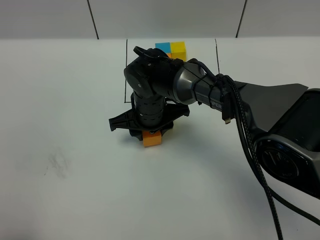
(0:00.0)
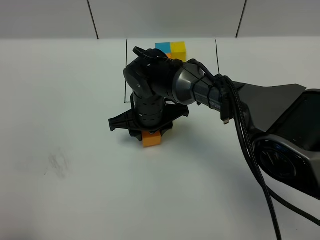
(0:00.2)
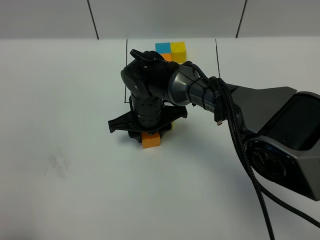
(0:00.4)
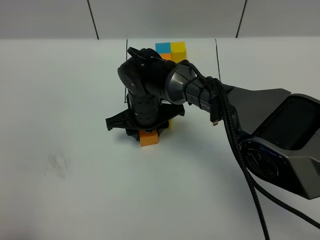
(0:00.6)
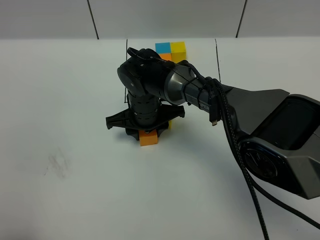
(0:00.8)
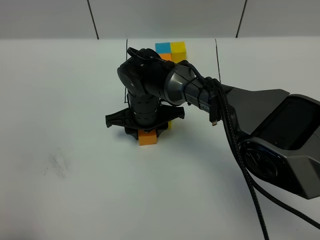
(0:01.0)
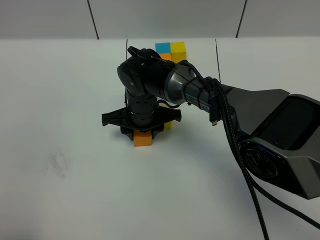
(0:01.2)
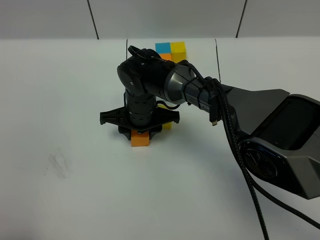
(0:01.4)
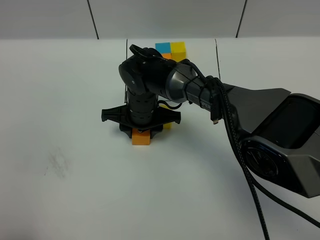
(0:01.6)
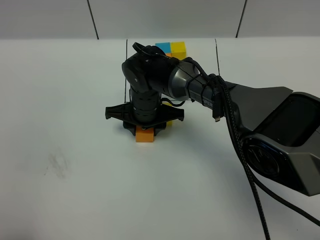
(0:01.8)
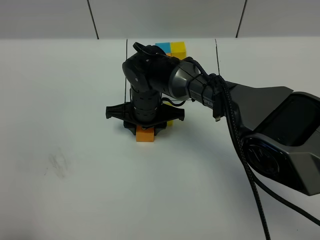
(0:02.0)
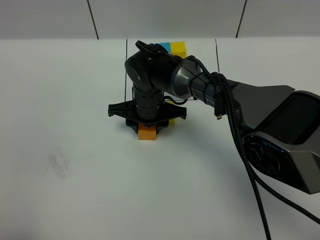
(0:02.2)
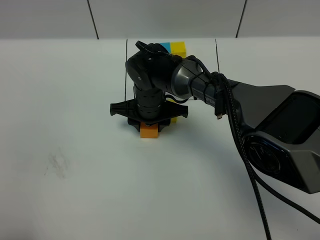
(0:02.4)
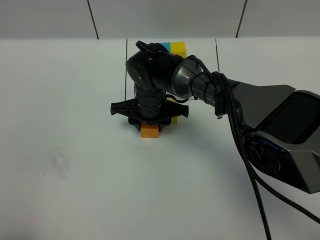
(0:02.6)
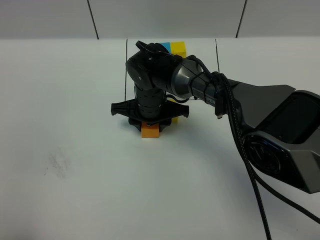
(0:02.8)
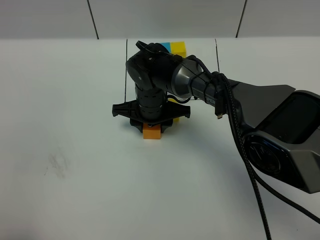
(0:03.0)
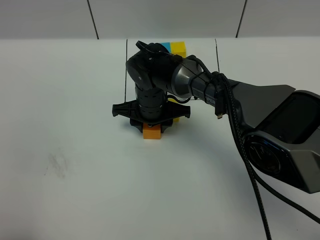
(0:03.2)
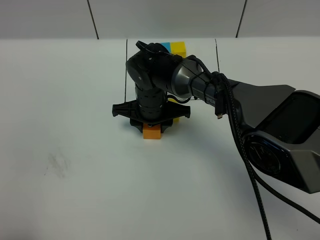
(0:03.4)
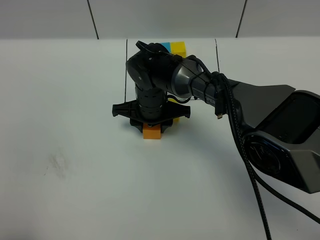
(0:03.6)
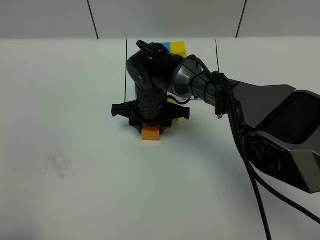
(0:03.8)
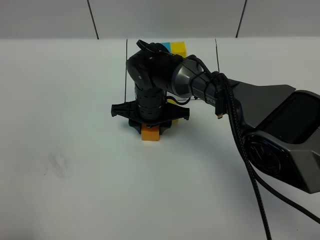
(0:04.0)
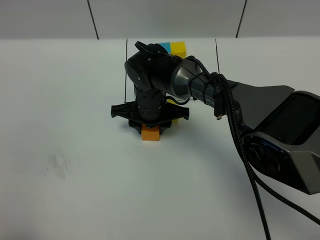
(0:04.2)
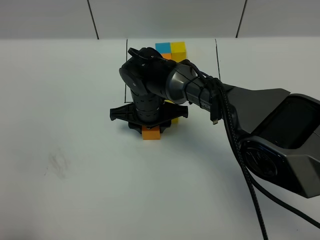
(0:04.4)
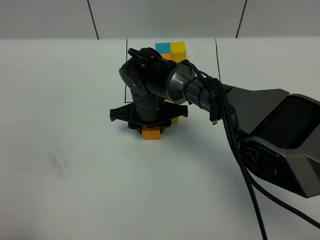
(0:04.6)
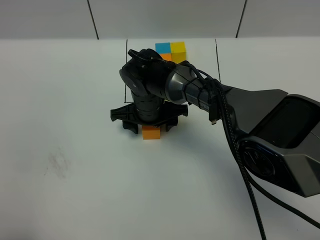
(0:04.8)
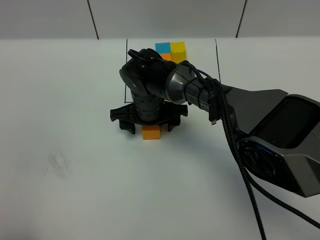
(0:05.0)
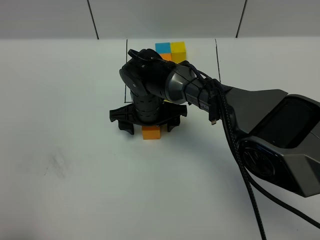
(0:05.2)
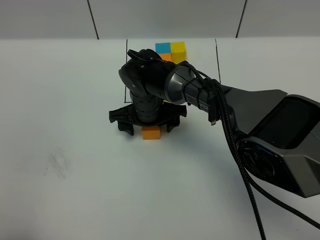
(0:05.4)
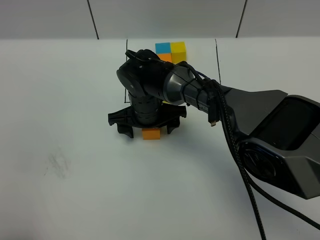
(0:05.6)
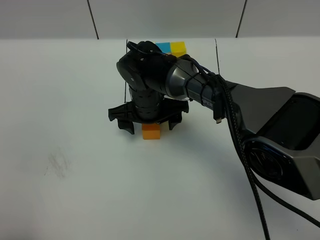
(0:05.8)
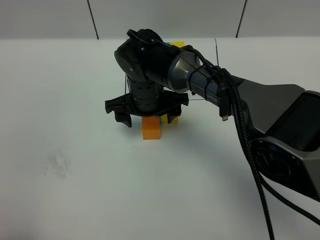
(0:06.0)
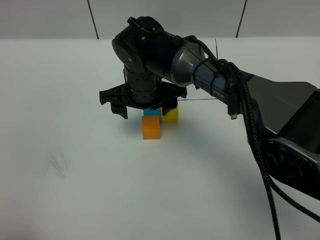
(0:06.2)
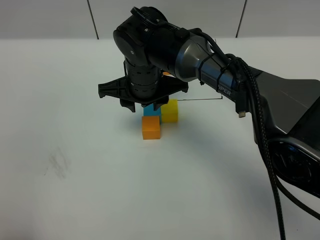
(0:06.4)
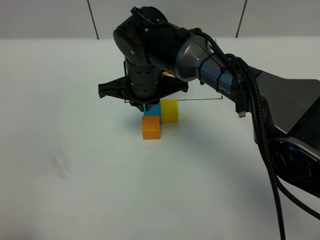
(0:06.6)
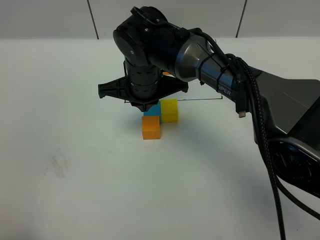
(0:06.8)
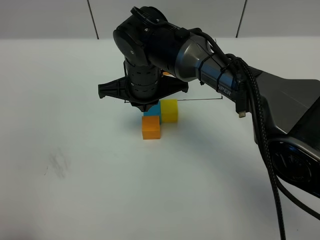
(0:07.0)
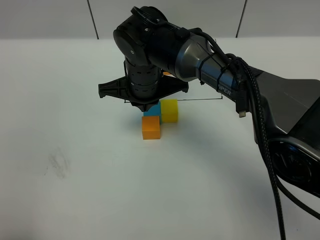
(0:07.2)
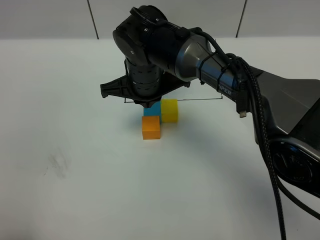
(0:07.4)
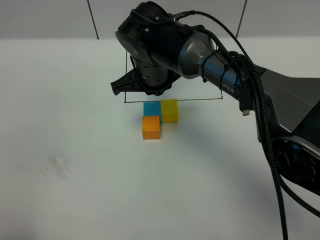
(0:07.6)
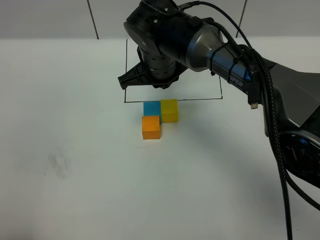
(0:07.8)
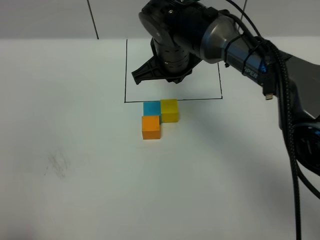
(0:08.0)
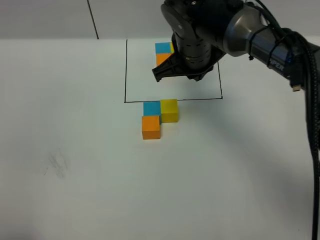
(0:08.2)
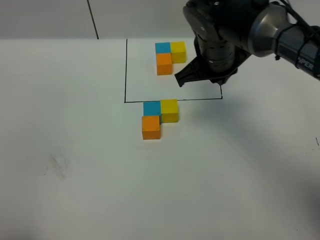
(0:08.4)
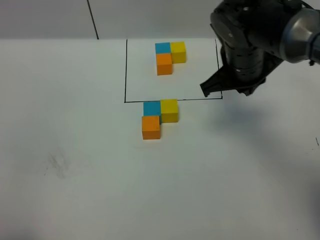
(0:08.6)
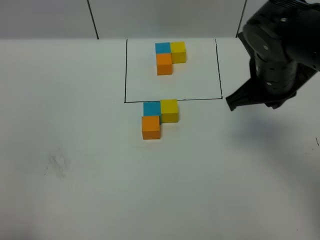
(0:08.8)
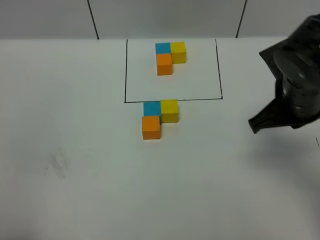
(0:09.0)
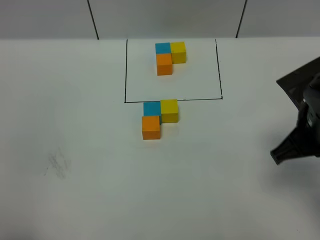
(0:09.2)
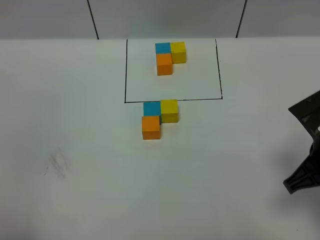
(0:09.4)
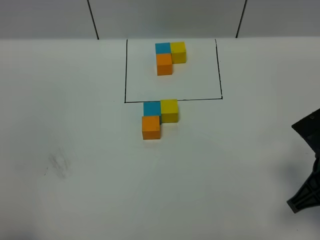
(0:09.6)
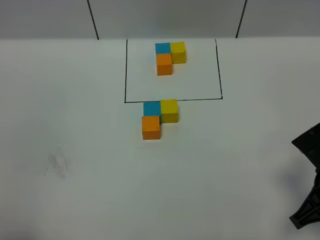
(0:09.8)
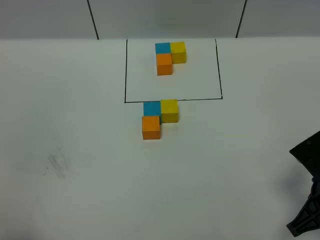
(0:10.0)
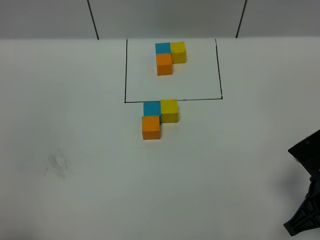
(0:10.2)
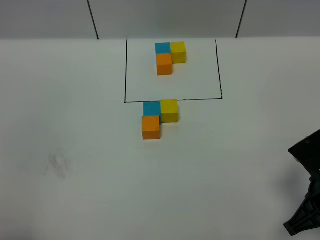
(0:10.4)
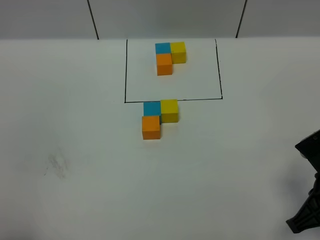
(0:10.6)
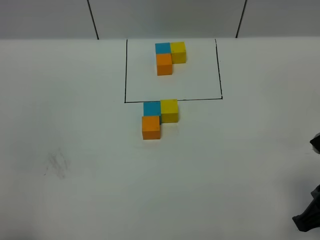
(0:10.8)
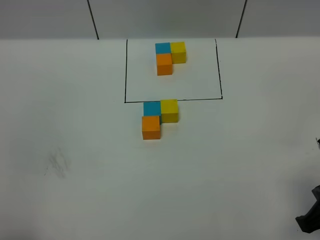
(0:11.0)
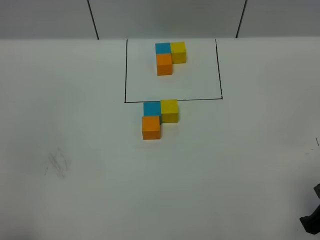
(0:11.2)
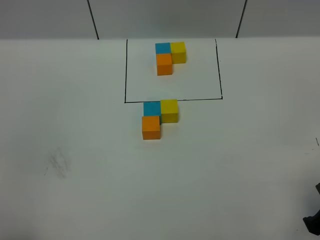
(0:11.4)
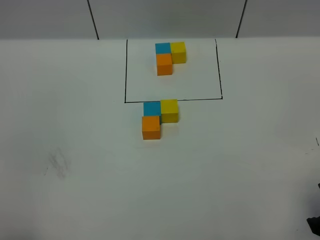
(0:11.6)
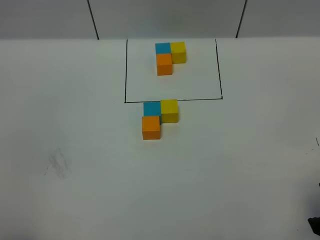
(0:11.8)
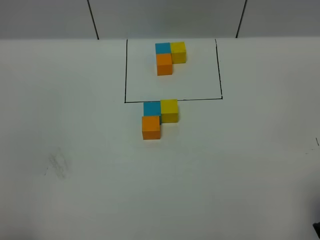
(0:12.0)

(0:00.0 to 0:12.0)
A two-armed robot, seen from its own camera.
Task of the whole recording: According to the building block template in front, assemble the scattered blocks together.
Step, 0:00.0 - 0:05.2: Put the orange cube in the front of the blue cube.
0:00.0 - 0:03.0: The grippers move only a little.
0:03.0 - 0:04.4: Both grippers stay put.
0:04.4 - 0:06.0: The right gripper is displaced upward by about 5 cm, and opens.
0:06.0 - 0:07.6: The right gripper moves upward, some 5 cm, and closes.
0:07.6 - 0:09.0: The right gripper heads to the right and backward, covering some 25 cm.
0:09.0 - 0:10.4: The right gripper goes some 15 cm backward and downward.
0:10.4 - 0:12.0: The right gripper shifts about 5 cm upward.

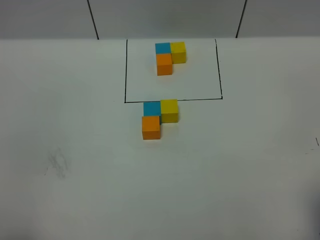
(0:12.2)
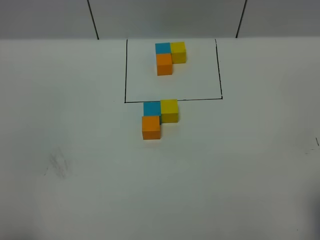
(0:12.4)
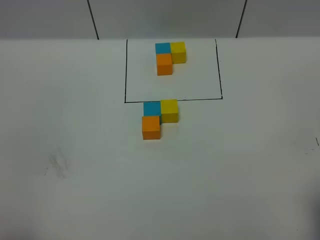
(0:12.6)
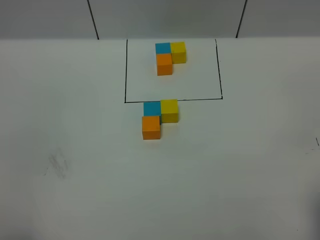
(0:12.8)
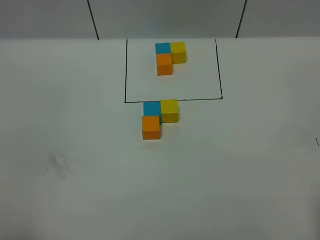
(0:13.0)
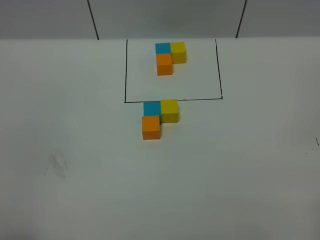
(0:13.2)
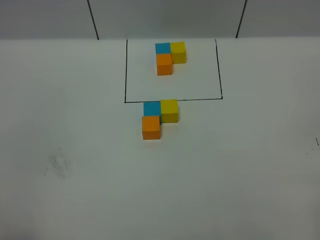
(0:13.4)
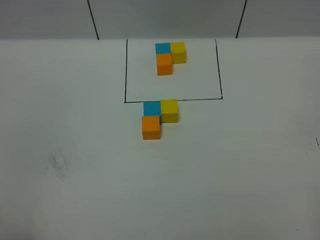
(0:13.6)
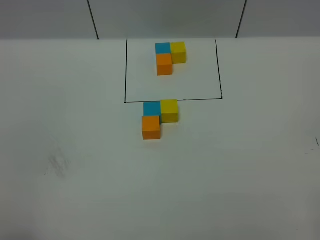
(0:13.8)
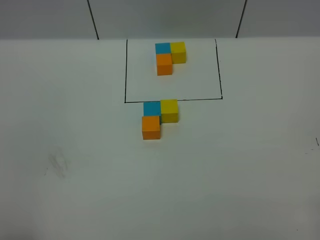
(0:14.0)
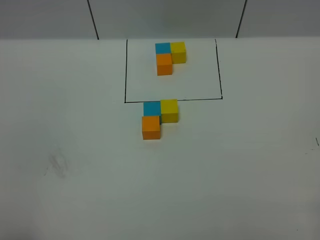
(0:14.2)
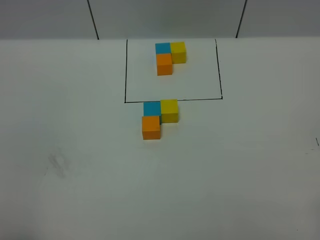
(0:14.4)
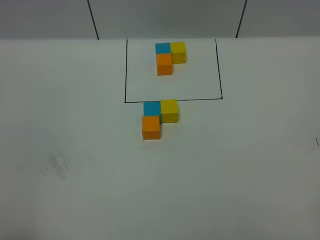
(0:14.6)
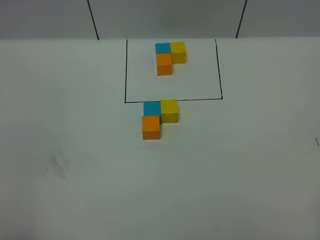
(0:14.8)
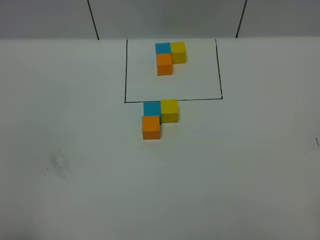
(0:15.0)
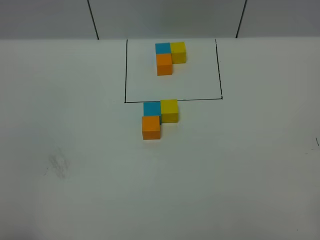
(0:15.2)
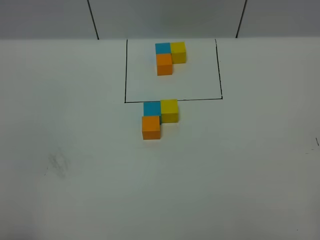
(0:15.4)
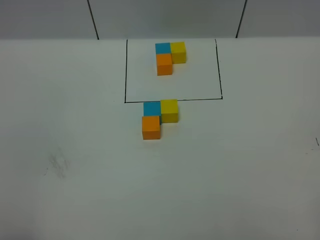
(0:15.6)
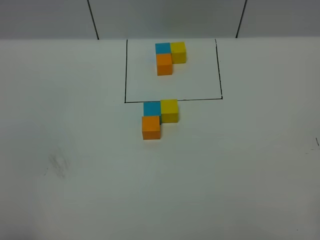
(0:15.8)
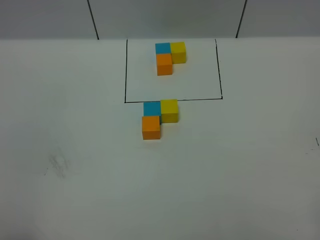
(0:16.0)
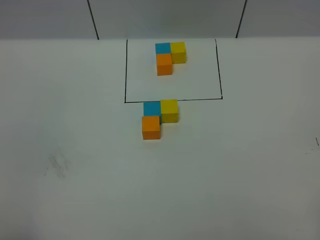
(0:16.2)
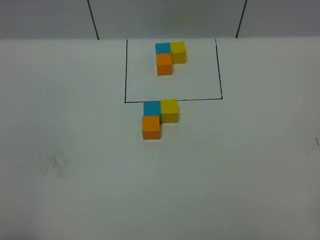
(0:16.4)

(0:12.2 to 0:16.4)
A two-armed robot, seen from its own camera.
Task of the whole recording: According to the building block template in front, assemble the scattered blocks together.
0:15.0 - 0:16.4: Both grippers stay put.

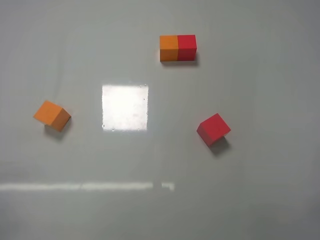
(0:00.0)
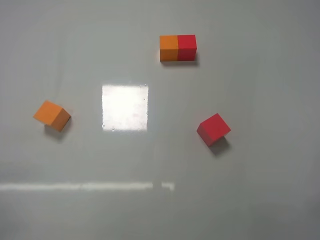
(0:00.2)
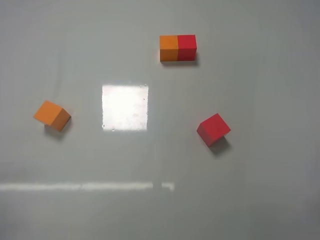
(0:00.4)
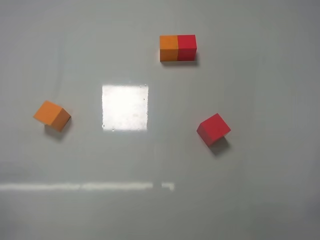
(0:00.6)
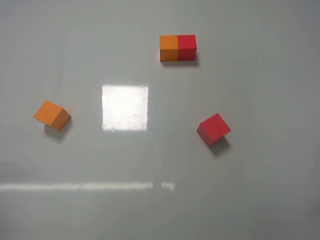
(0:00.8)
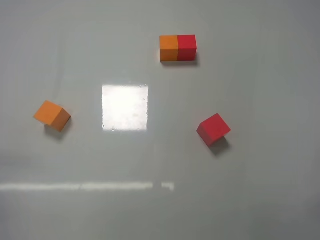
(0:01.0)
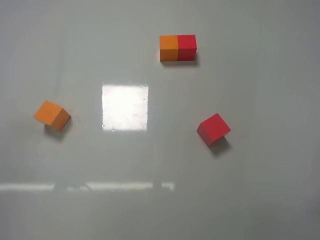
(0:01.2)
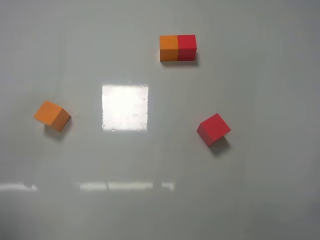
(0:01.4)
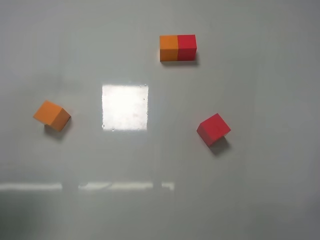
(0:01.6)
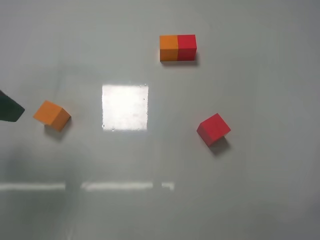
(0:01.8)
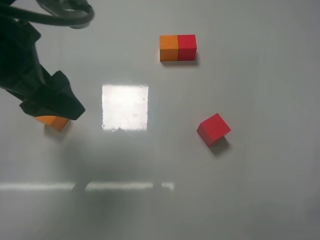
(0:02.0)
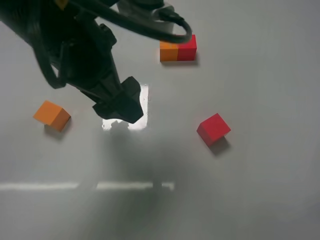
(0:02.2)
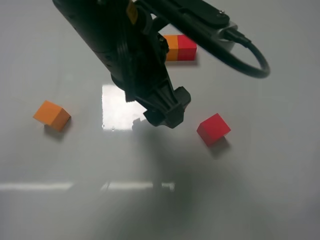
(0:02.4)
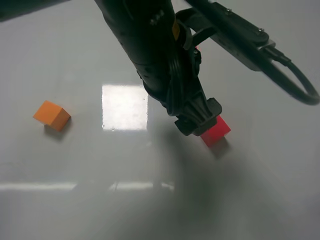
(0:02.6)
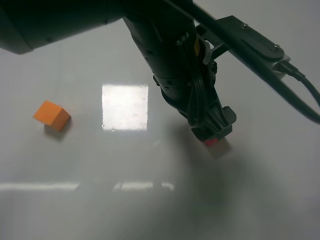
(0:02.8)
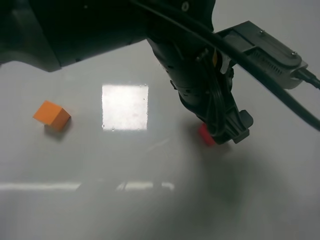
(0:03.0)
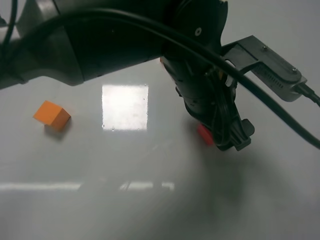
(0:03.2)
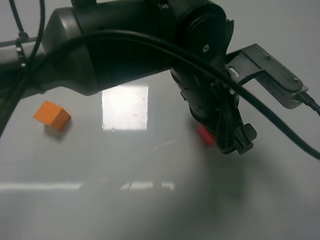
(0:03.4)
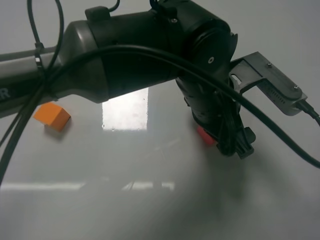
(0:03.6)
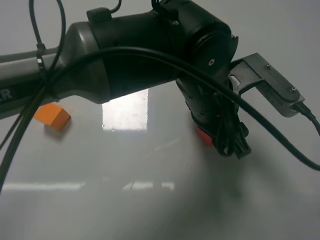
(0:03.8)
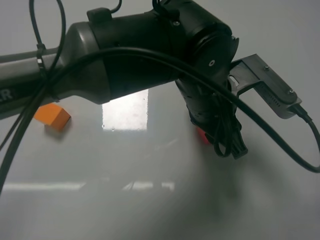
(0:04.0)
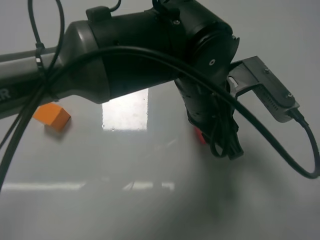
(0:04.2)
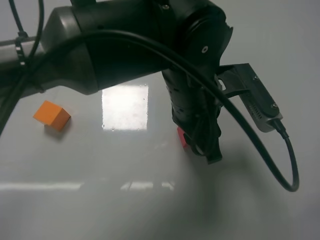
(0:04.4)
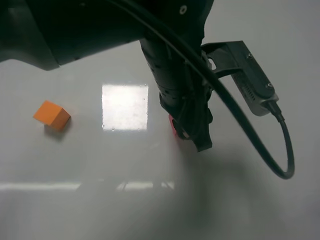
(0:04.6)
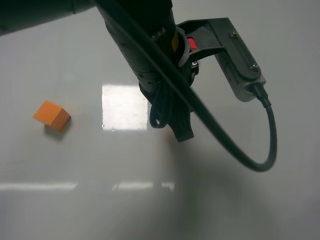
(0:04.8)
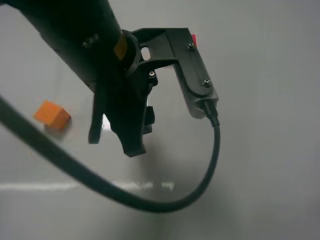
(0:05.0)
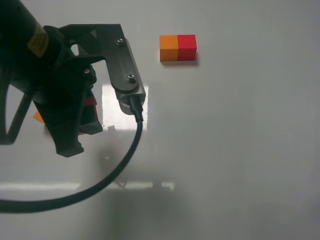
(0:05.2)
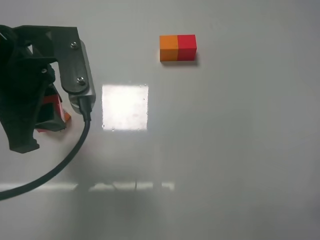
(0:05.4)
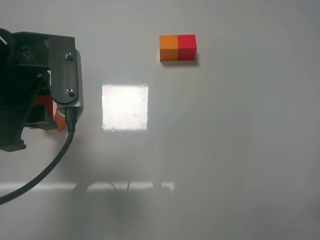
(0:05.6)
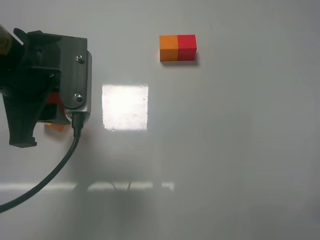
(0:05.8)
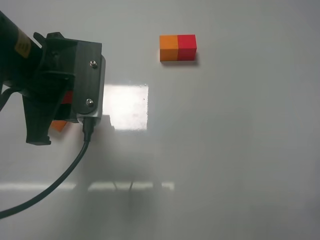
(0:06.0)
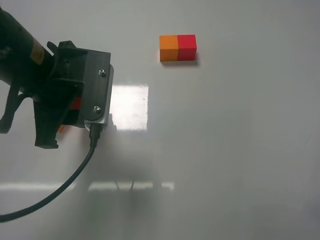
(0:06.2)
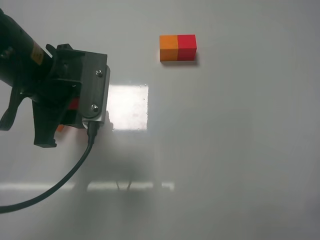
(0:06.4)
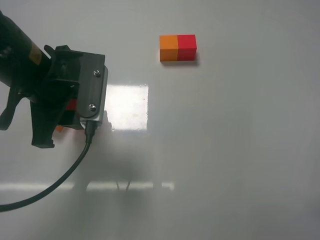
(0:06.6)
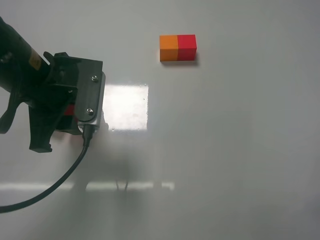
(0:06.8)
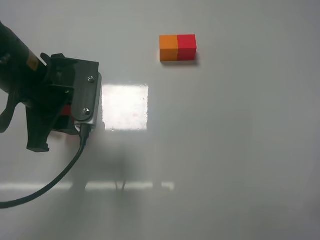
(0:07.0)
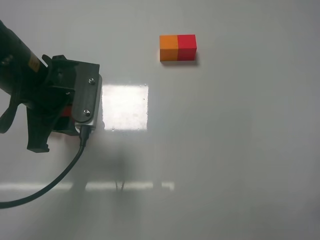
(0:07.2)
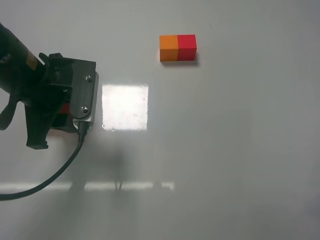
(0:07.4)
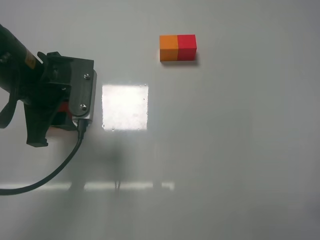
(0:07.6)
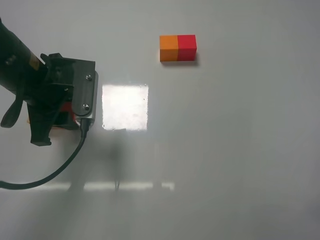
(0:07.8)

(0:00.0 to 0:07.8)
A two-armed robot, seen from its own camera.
Task of the whole recording: According to the building block template in front, assemble the scattered blocks together.
Step, 0:00.0 - 0:04.0: Grasp the red block with left gripper.
0:00.0 - 0:01.6: The left gripper goes about 20 cm forward and upward, and opens its fingers.
0:01.6 - 0:03.2: The left gripper travels to the right by approximately 35 cm.
0:03.2 - 0:04.6: The left gripper closes its fingers.
0:04.6 - 0:06.2: The left gripper shifts roughly 15 cm to the left.
0:06.2 - 0:07.8: There are only small adjustments of the grippers.
